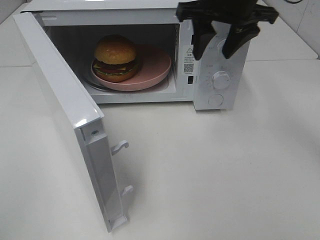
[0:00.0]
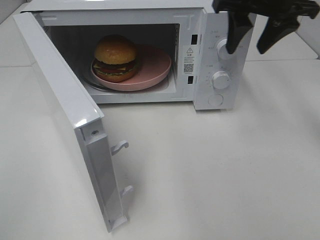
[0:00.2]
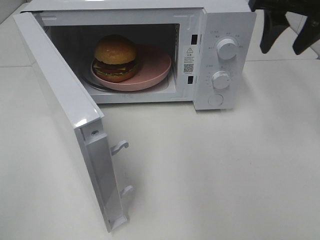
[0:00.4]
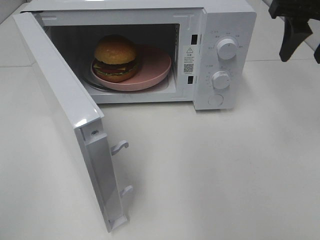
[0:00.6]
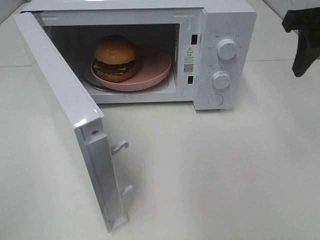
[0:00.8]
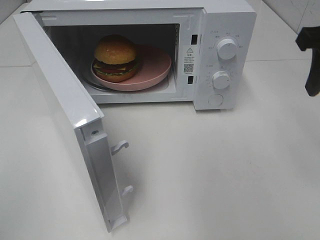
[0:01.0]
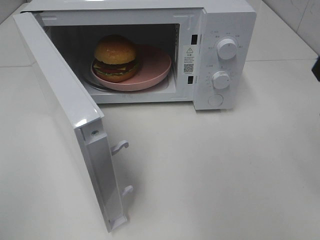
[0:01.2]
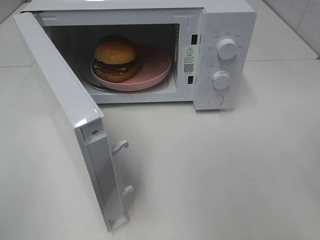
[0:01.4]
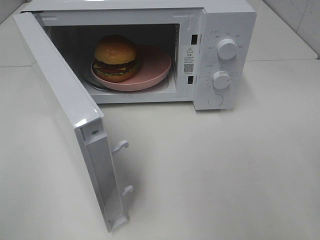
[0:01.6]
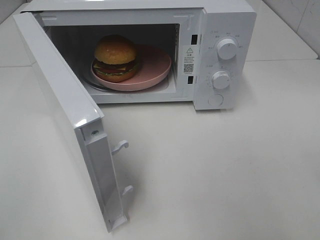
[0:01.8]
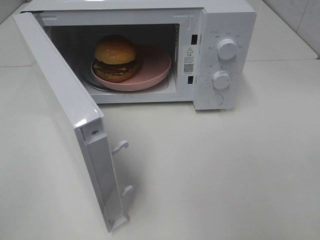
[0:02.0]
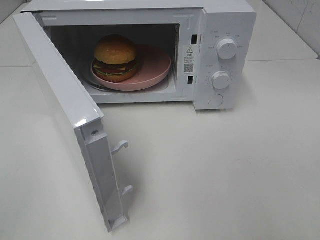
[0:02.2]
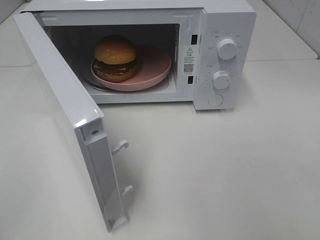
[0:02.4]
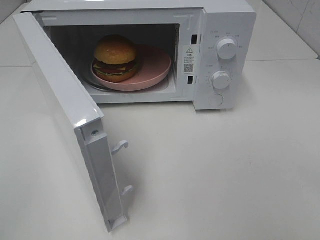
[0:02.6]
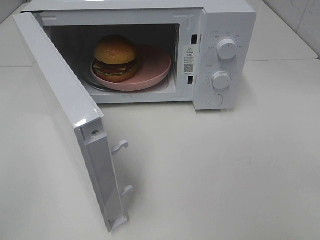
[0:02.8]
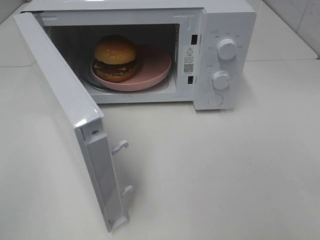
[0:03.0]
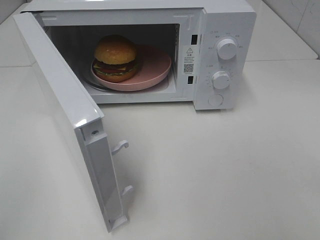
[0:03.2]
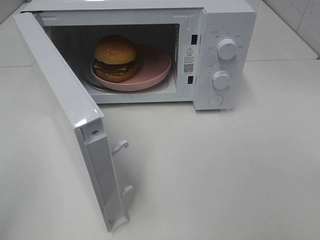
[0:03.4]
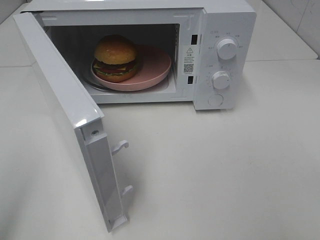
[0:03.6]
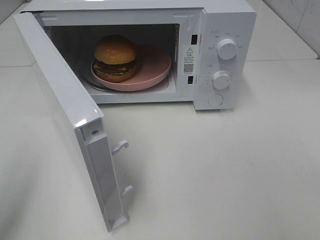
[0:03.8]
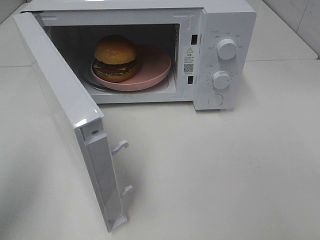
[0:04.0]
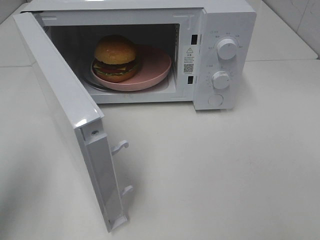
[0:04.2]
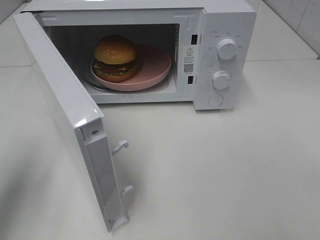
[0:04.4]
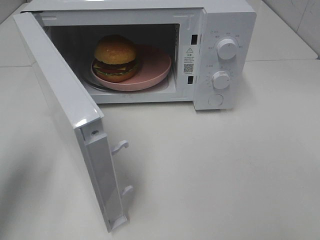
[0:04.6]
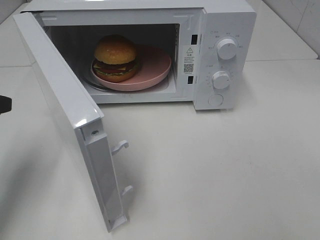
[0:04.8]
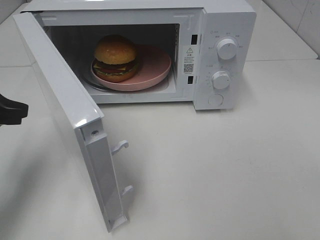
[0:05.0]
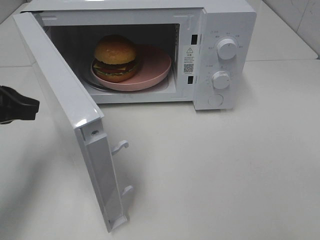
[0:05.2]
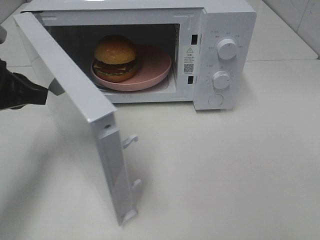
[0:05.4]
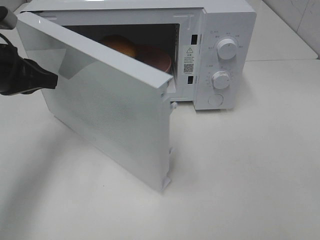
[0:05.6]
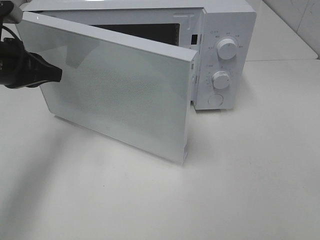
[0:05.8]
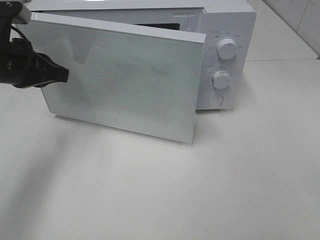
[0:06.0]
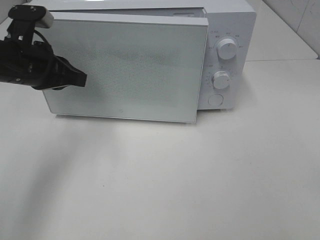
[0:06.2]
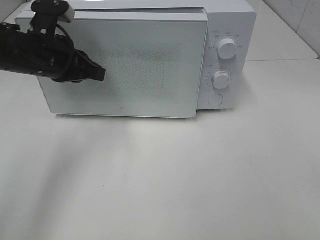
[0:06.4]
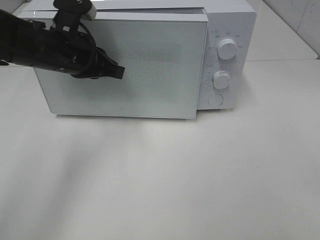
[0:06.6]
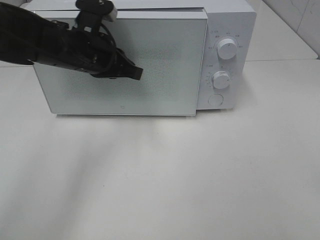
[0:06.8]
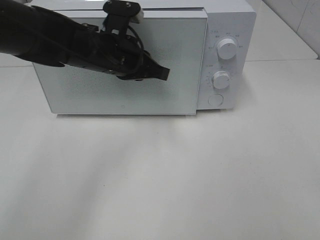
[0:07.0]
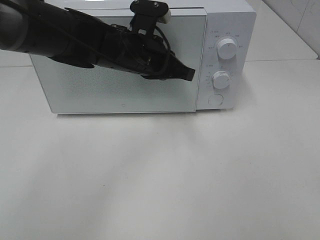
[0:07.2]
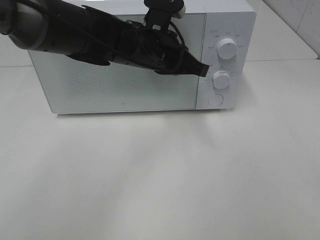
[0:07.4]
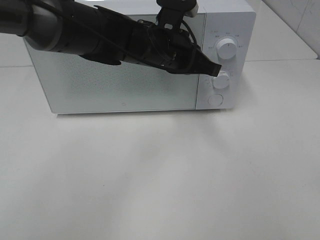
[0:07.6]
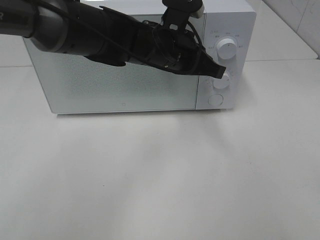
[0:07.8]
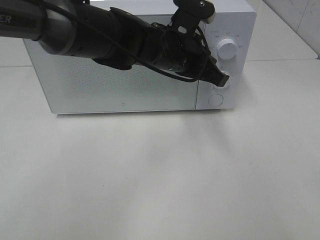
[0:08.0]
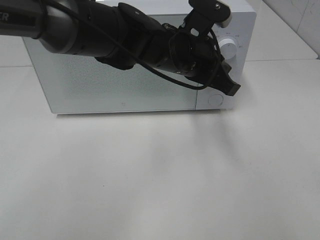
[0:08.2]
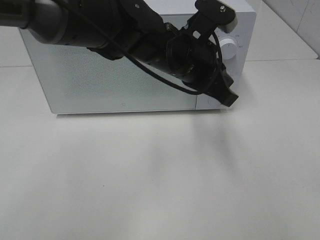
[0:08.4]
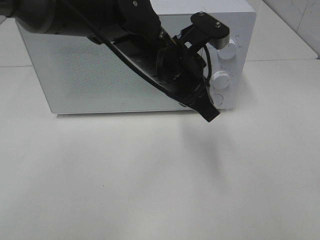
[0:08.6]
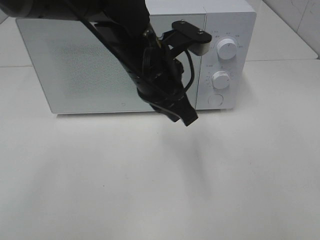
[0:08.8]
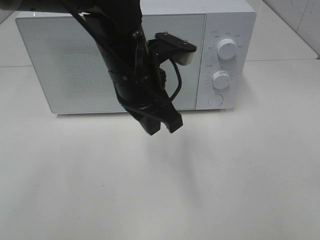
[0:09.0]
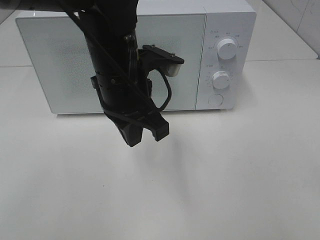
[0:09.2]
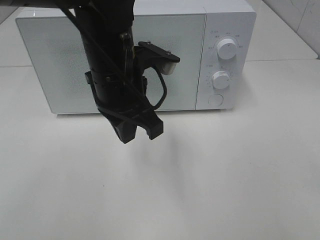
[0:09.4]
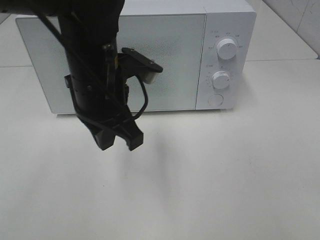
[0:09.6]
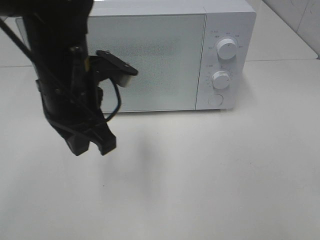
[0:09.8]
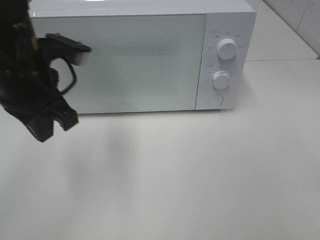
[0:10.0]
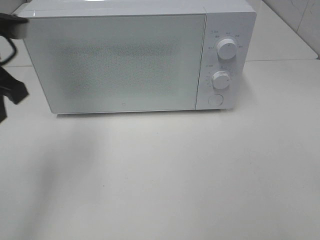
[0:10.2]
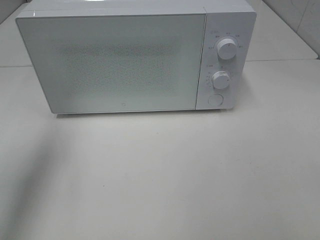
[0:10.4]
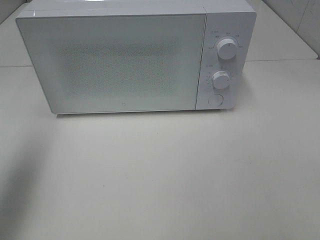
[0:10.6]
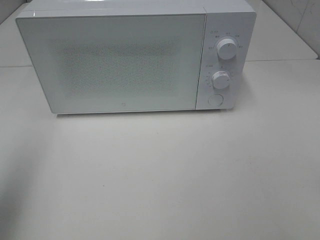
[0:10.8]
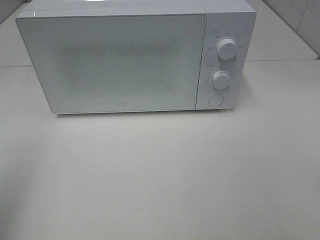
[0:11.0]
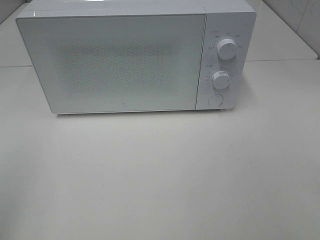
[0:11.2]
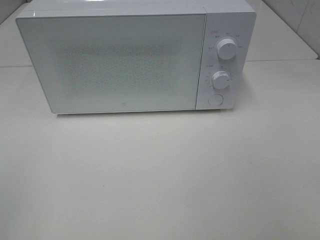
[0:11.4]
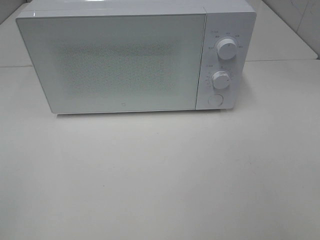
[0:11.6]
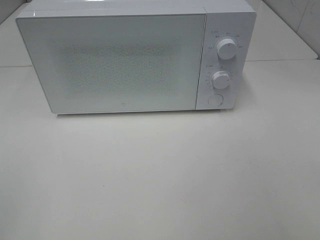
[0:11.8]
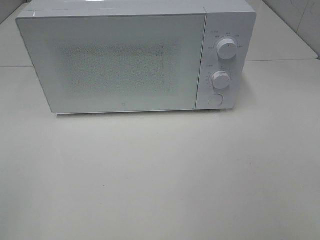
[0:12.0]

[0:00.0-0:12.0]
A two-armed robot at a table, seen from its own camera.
Task of the whole recording: Heat the burger.
Step, 0:00.0 to 0:07.8: Left hand: close the microwave door.
0:00.0 to 0:01.6: The right gripper goes roughly 25 cm backward and to the right.
0:03.0 to 0:04.4: The left gripper moves forward, about 20 cm.
0:04.4 to 0:06.0: The left gripper heads forward and to the right, covering some 15 cm.
0:06.0 to 0:07.6: The left gripper moves to the right, roughly 25 cm.
0:07.6 to 0:09.0: The left gripper moves backward, roughly 10 cm.
0:09.0 to 0:10.4: The left gripper travels to the left by about 25 cm.
0:10.4 to 0:12.0: The left gripper shifts roughly 25 cm backward.

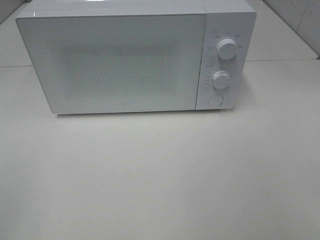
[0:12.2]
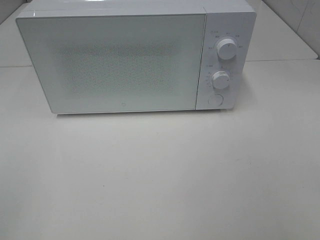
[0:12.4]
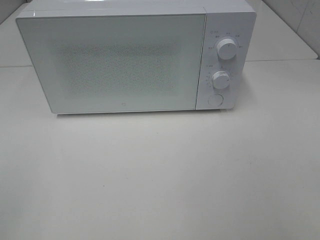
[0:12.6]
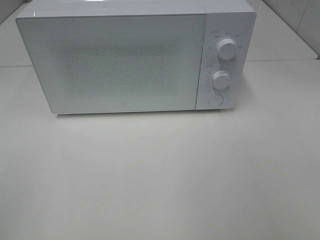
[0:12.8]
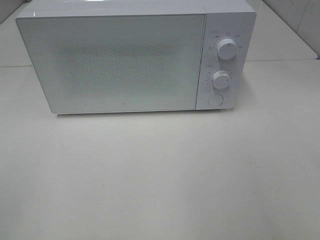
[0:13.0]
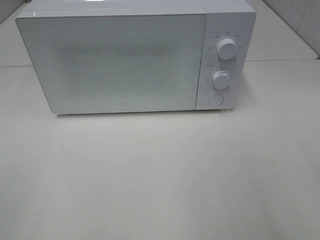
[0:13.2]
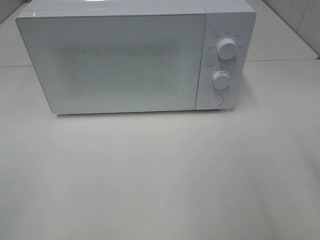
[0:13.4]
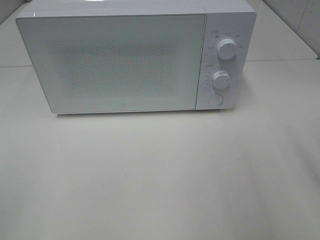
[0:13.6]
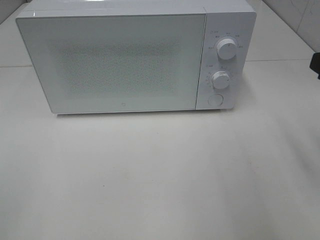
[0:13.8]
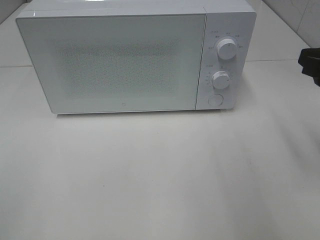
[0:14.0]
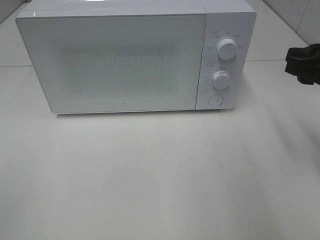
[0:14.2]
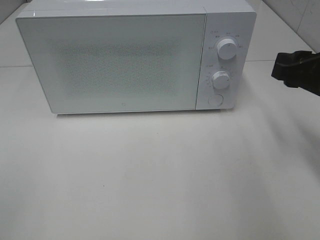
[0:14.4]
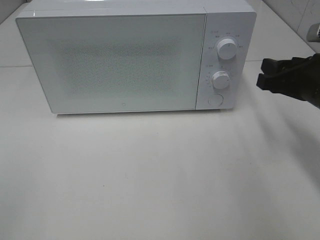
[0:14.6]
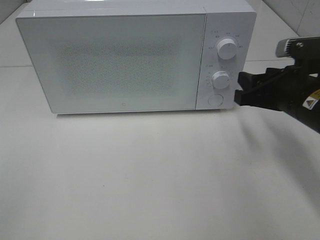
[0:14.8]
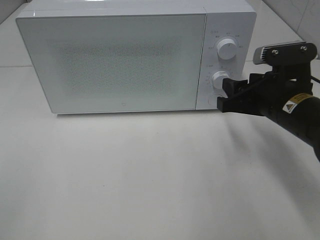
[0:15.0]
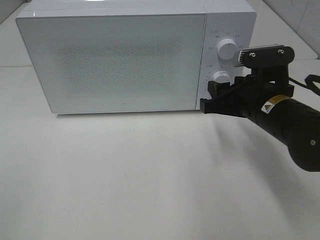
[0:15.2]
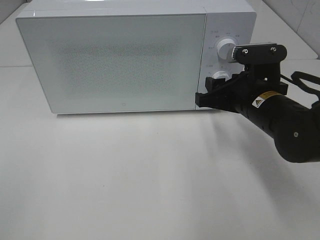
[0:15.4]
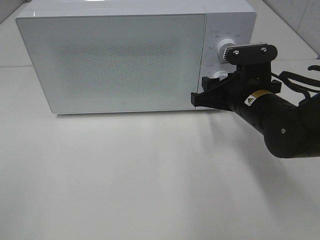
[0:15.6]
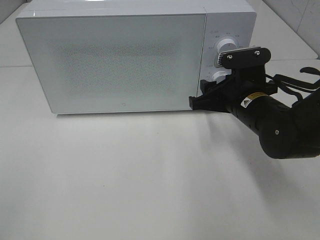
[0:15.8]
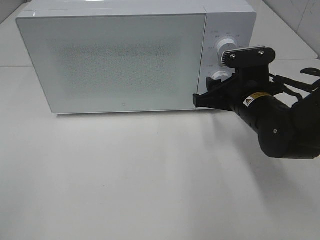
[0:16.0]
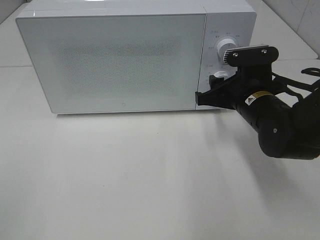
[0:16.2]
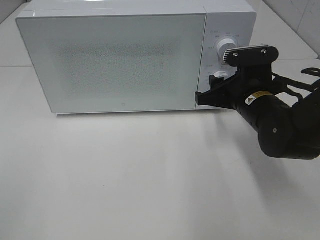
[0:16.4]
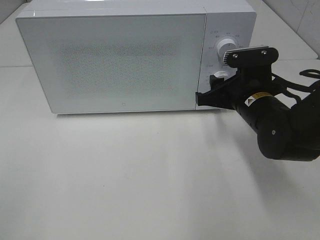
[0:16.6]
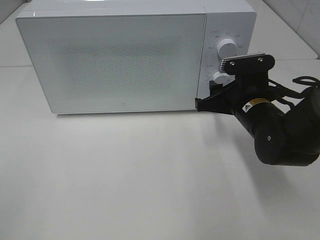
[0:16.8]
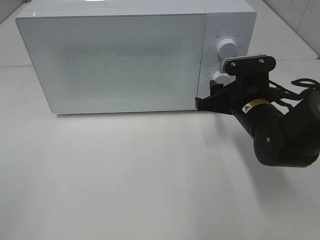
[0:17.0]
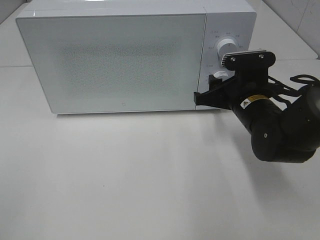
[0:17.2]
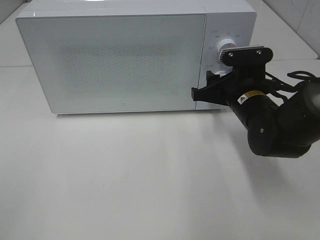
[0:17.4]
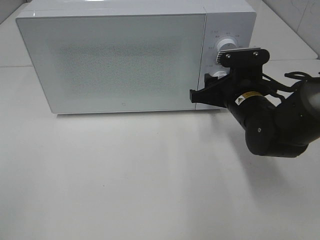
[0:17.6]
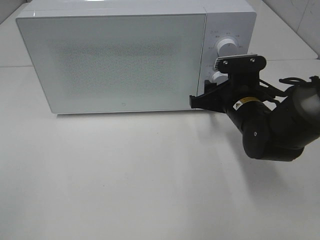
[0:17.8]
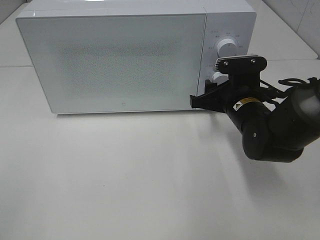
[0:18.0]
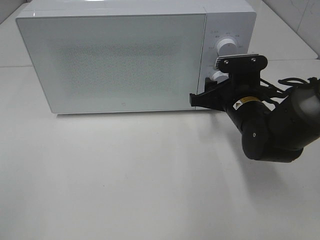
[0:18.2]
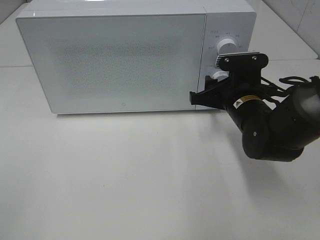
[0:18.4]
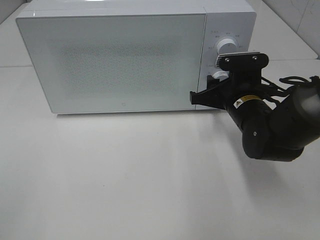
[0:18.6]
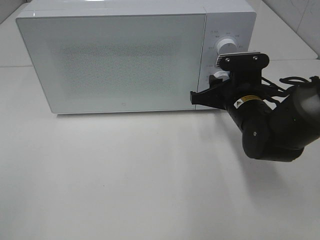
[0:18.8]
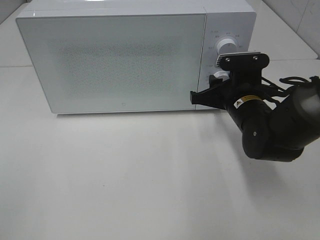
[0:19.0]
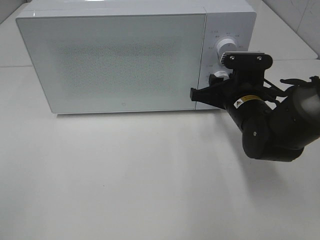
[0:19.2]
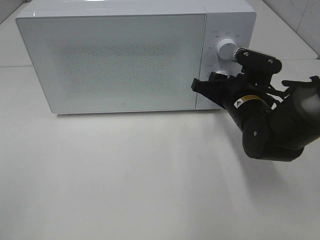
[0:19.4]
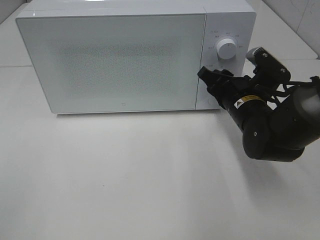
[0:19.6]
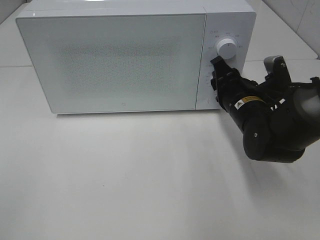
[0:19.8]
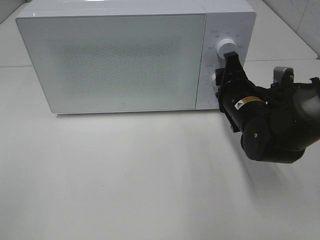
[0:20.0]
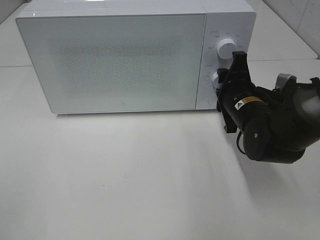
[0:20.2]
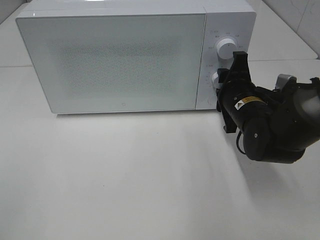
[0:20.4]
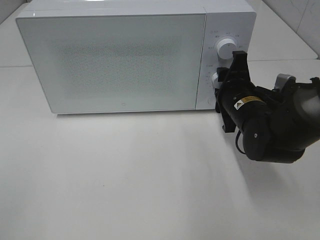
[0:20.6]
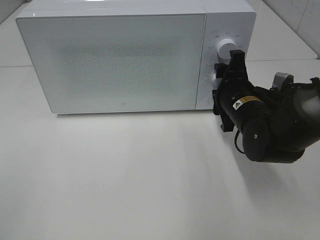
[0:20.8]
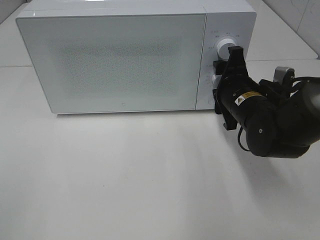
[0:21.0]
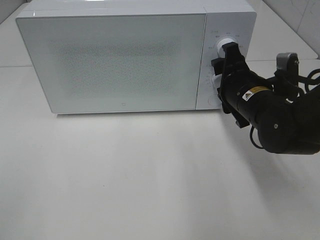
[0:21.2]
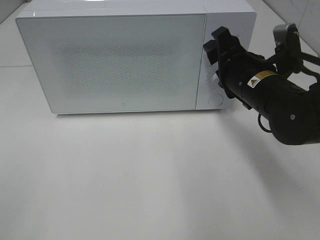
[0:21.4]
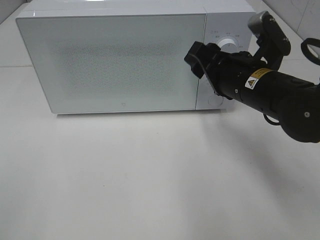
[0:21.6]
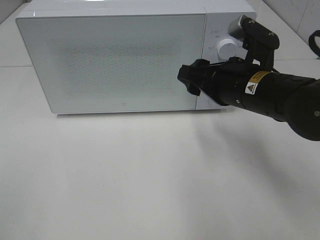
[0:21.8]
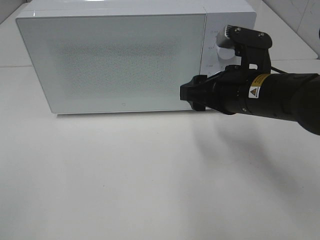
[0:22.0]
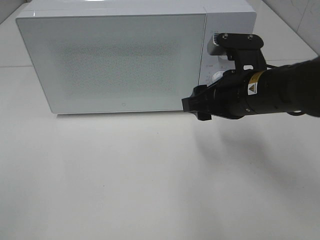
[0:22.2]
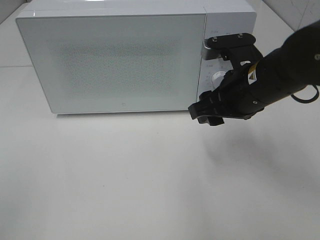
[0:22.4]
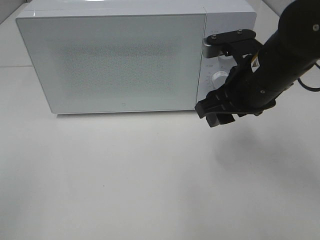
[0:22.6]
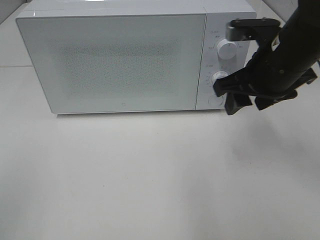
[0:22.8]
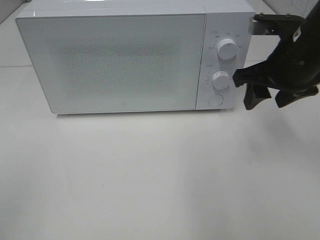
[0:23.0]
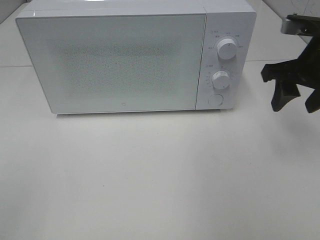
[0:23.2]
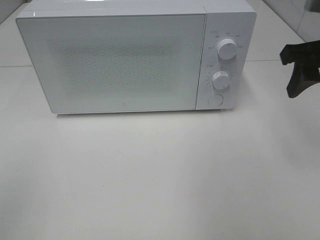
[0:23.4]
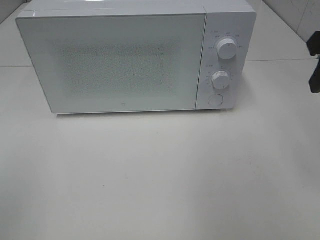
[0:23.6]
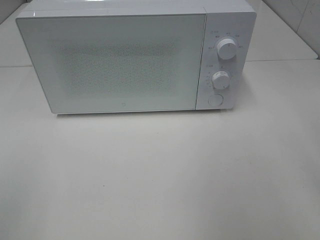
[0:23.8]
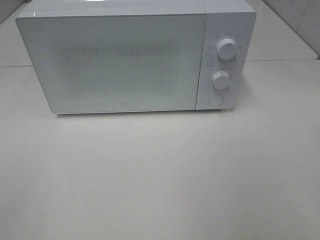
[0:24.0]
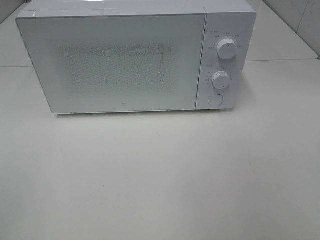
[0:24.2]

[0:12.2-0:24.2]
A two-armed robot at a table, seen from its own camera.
Task of the whole recording: Heat the burger.
Step, 0:12.2 to 0:20.8: Right hand: twist timer button.
0:13.8 to 0:15.2: The right gripper heads downward, to the left and forward, covering roughly 15 cm.
0:15.2 to 0:16.6: The grippers make only small movements.
0:16.6 to 0:18.2: The grippers make only small movements.
0:21.2 to 0:22.6: The right gripper shifts about 5 cm upward.
0:22.6 to 0:24.2: The right gripper shifts approximately 25 cm backward and to the right.
